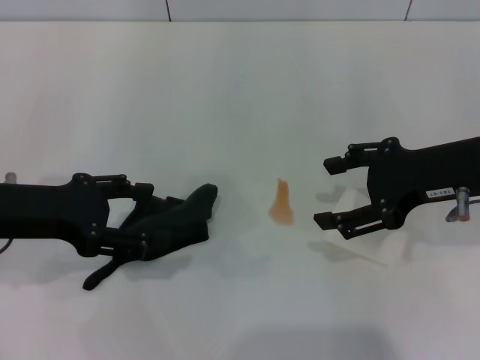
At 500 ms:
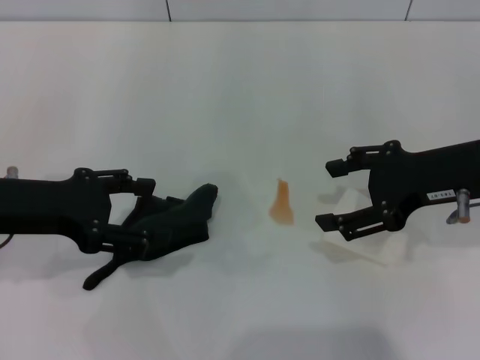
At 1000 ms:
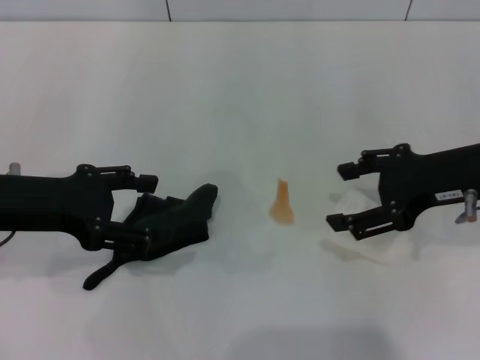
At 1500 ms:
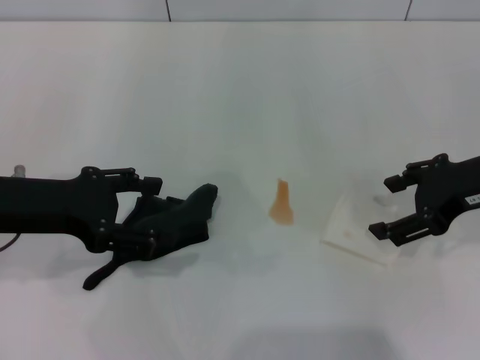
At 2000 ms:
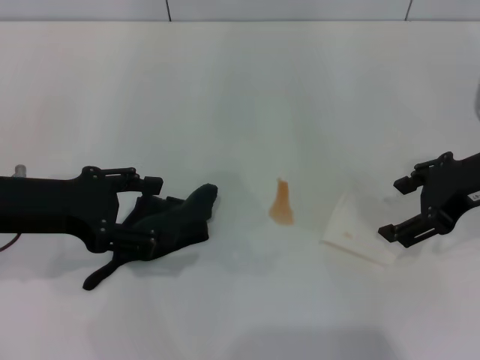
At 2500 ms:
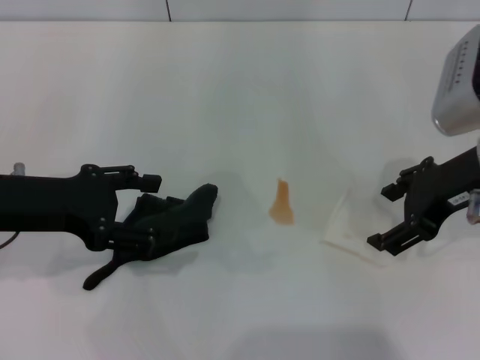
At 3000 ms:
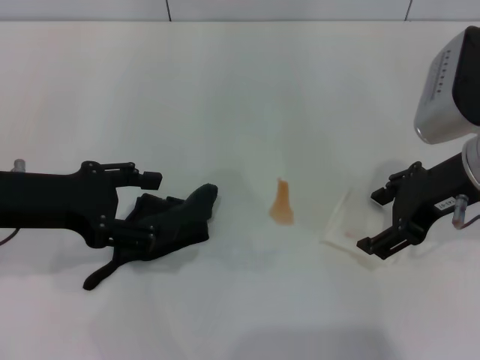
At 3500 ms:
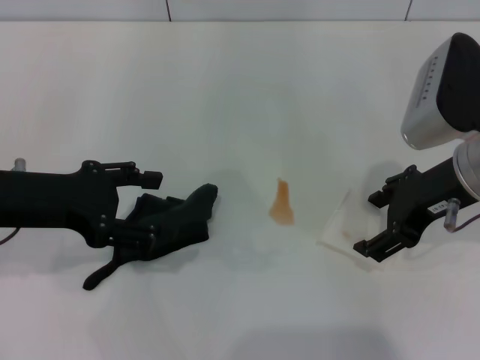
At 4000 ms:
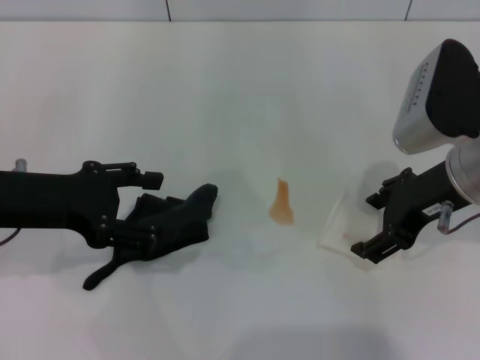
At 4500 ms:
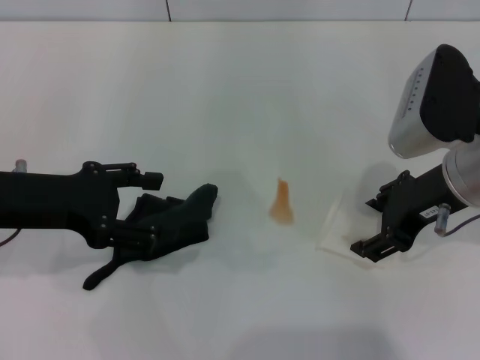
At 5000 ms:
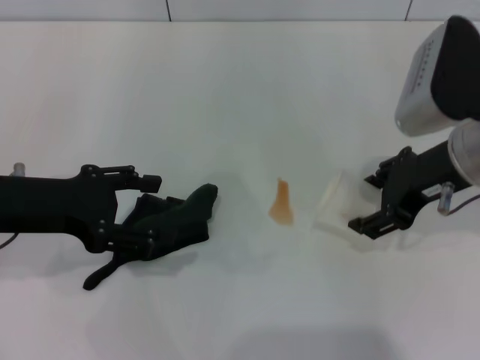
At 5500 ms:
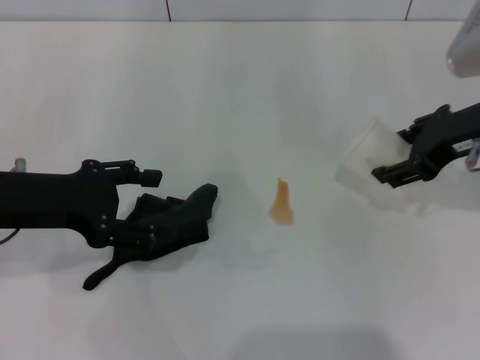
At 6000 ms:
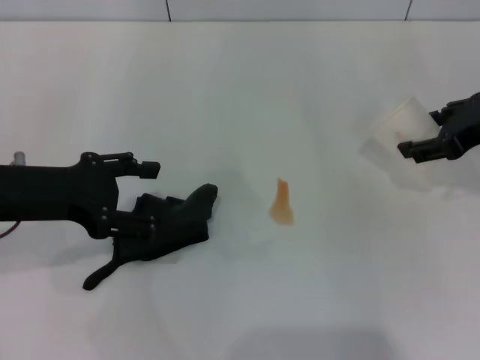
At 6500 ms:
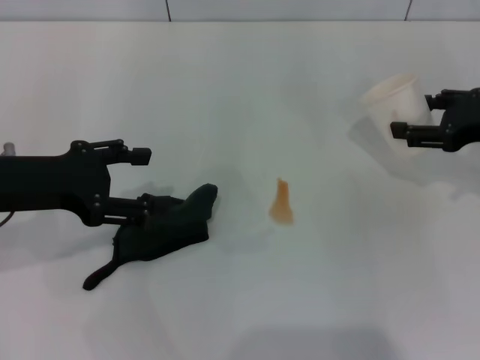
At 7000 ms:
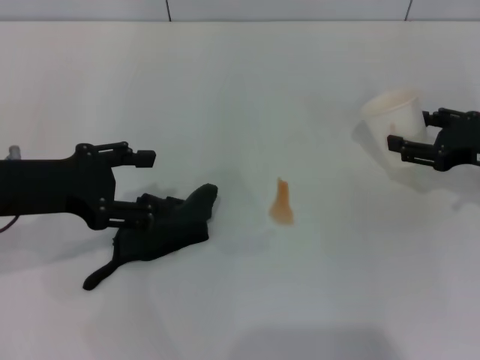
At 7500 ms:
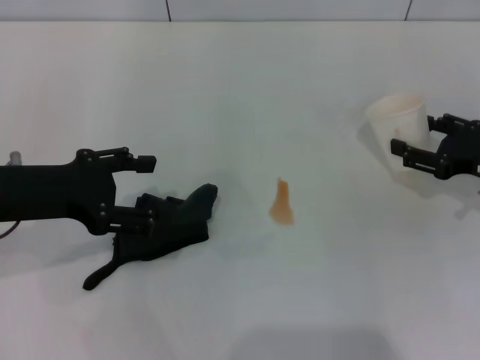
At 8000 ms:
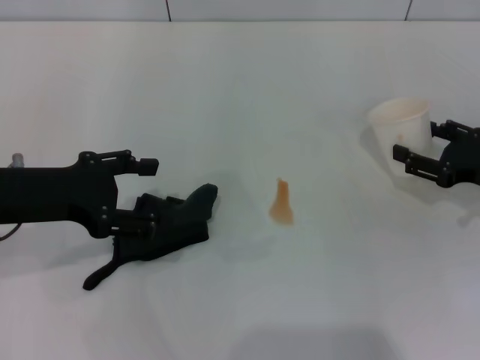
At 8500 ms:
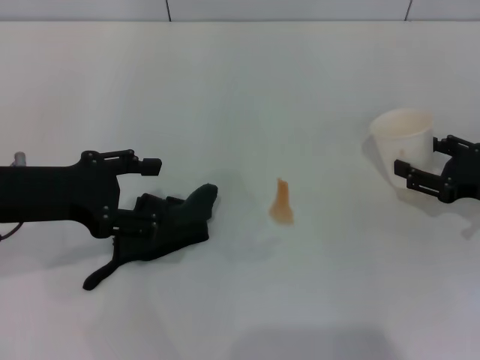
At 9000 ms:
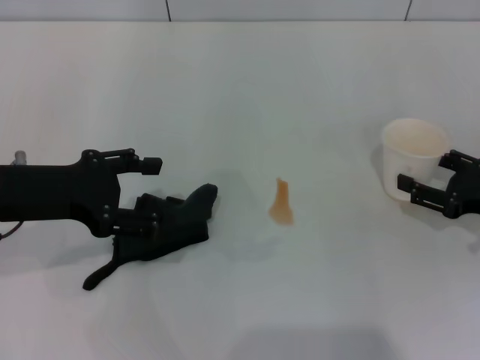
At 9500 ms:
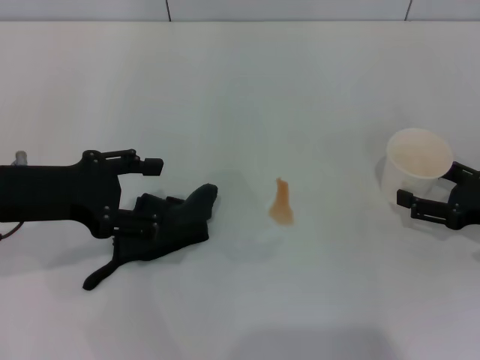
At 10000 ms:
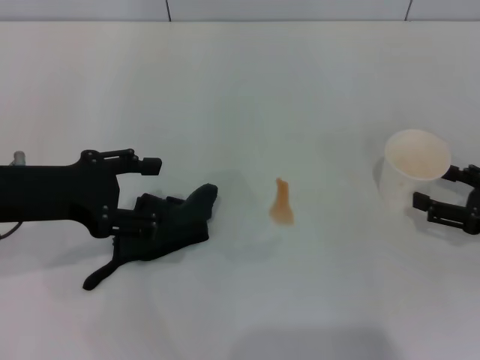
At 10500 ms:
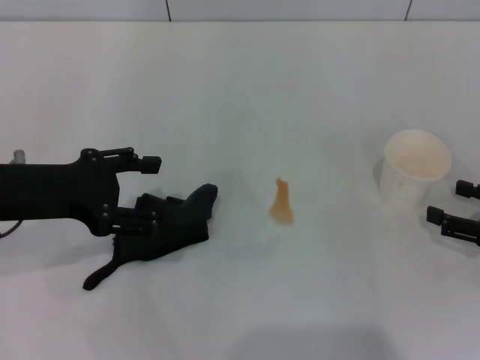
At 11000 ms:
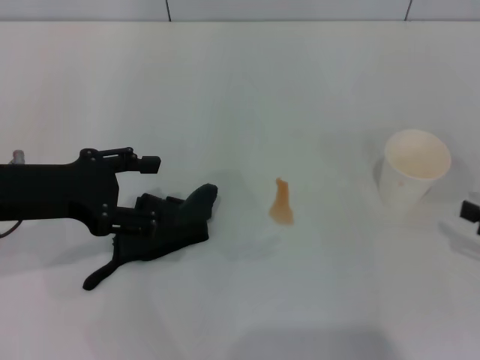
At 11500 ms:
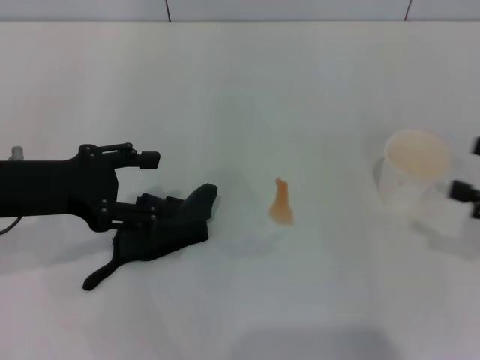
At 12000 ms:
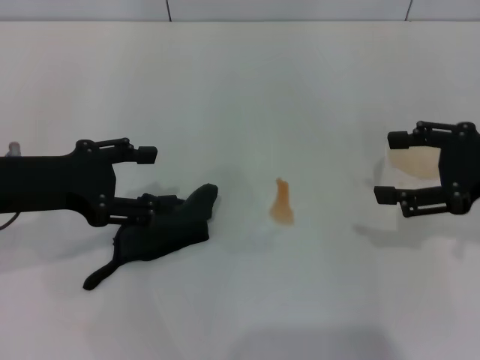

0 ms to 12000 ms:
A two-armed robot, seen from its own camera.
Step, 0 ms to 4500 ms: Grasp the paper cup with the right gripper.
Step, 5000 ms to 9500 ms: Stand the paper cup upright with the right gripper.
2000 ms to 4000 ms: The grippers move only a little.
4000 ms to 6000 ms: The right gripper moves to the right, some 10 cm, and closes.
6000 ms to 8000 ms: The right gripper is displaced downward by roughly 10 cm.
8000 ms to 10000 ms: The right gripper ends up some 5 cm from where it was, and opens.
10000 ms to 12000 ms: The right gripper goes approximately 15 cm upward and to the left.

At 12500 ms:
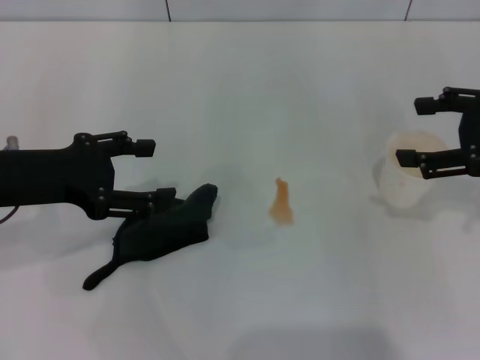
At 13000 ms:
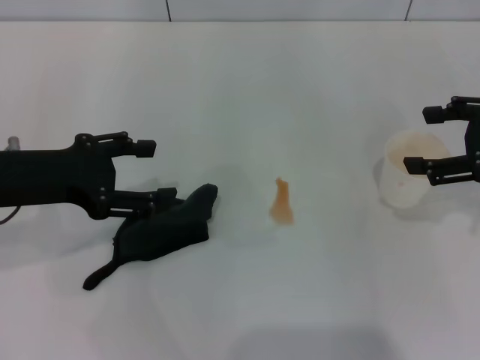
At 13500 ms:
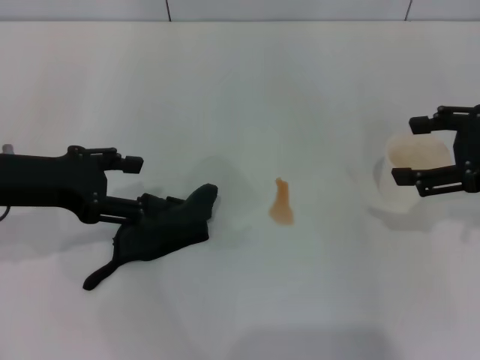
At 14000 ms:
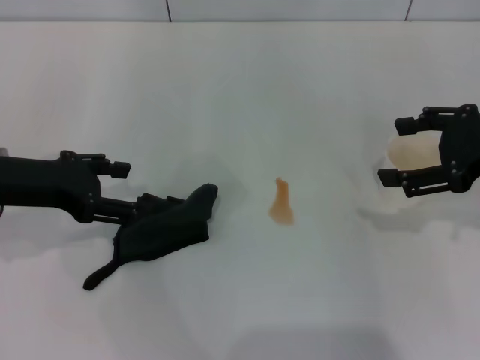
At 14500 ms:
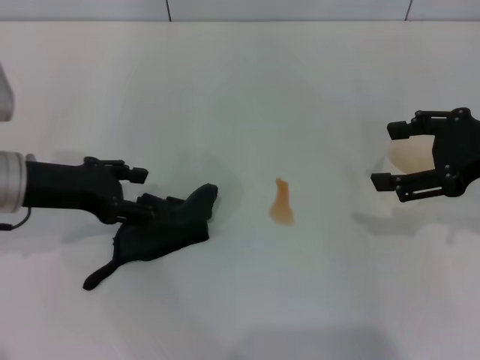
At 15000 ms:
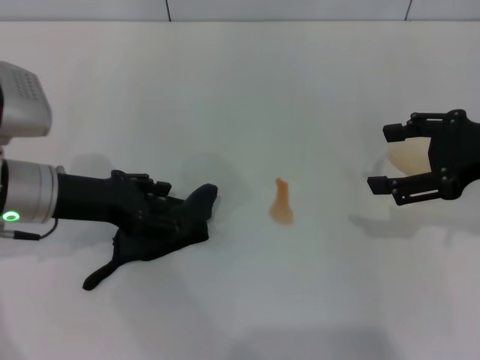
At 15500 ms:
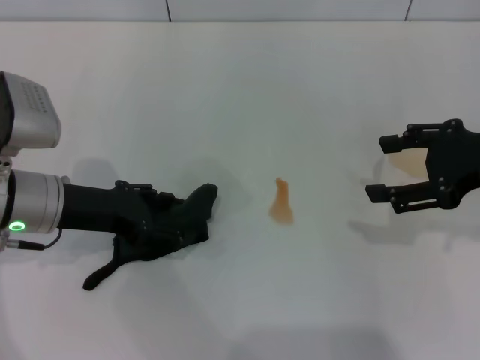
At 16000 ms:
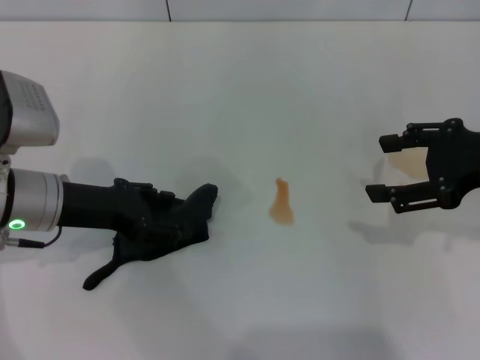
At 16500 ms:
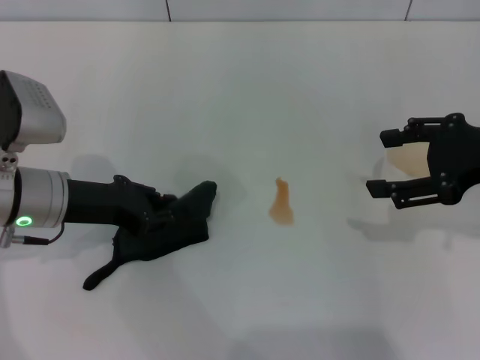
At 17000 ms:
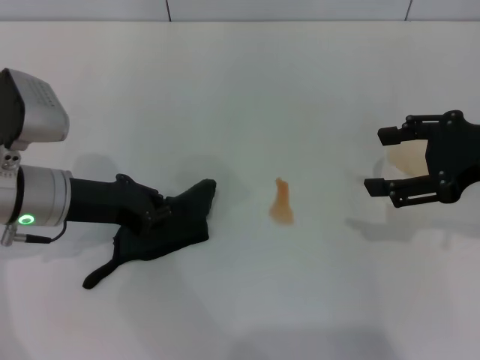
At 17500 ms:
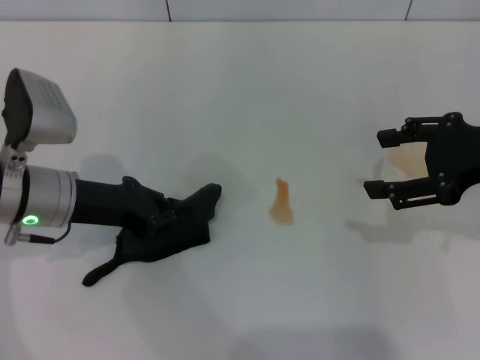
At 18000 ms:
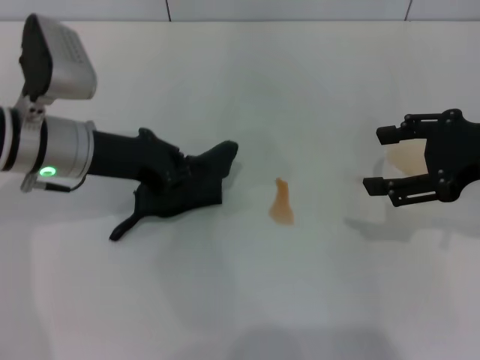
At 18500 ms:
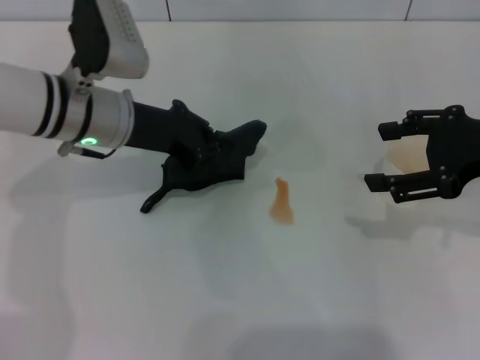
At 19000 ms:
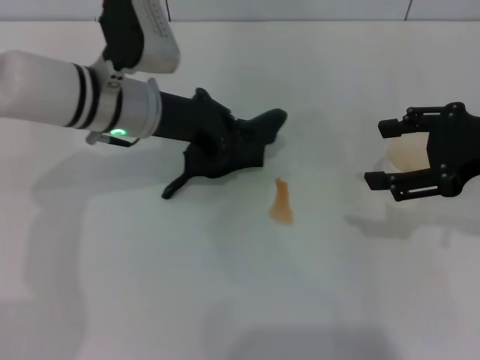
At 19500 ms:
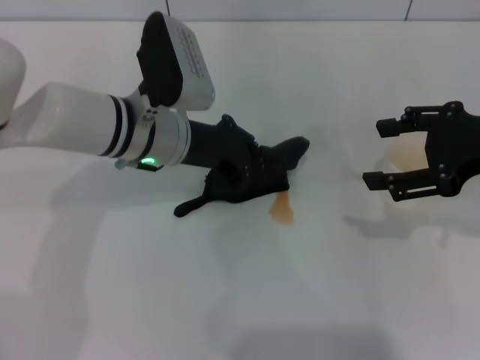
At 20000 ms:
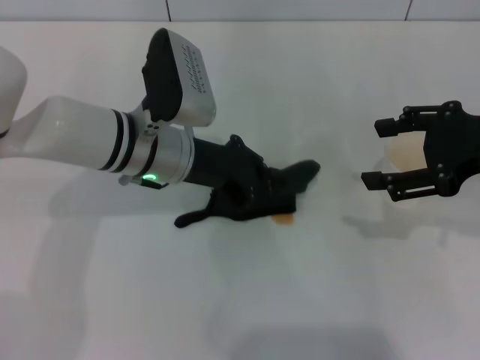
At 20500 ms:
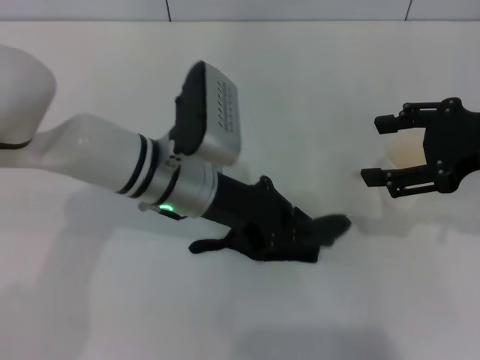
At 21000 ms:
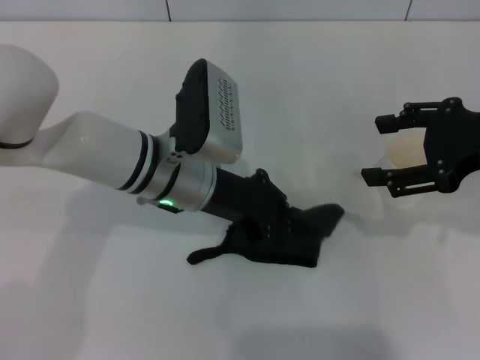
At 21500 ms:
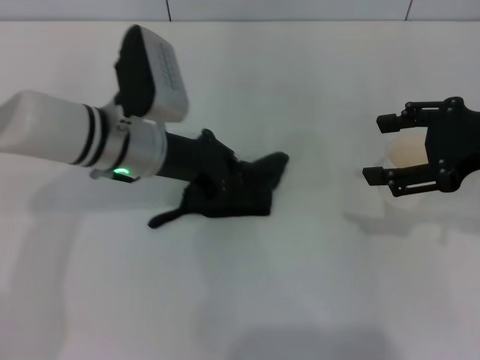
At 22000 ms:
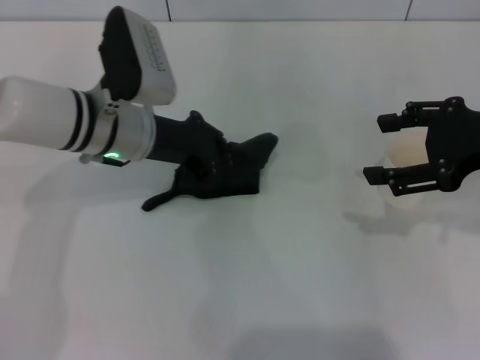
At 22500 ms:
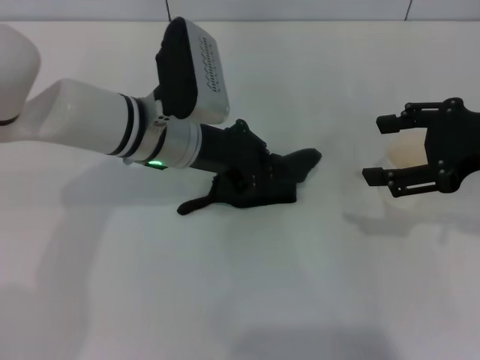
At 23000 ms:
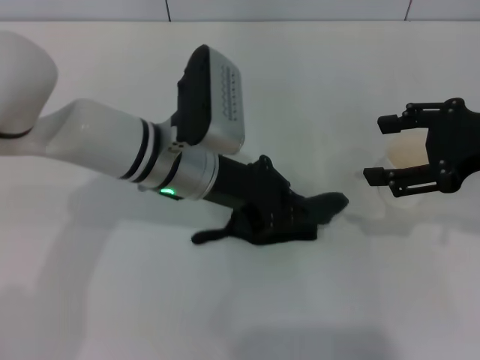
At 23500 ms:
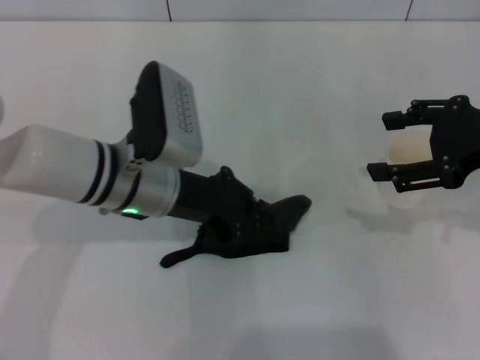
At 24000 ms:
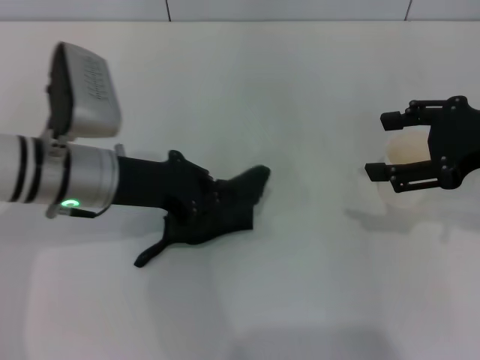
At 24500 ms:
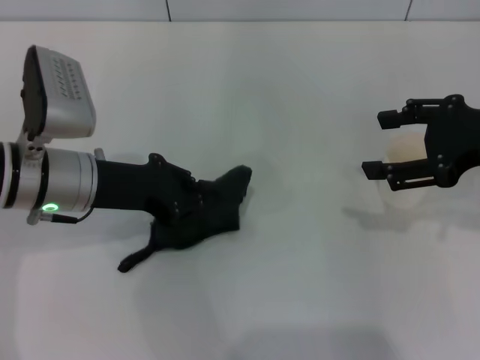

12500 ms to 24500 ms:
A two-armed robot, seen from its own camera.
Step, 12500 ms to 17000 ms: Grasp the rag with the left gripper.
Step, 17500 ms to 24000 ms: Wipe the stains off the table with the left gripper.
12500 ms to 14500 ms: The grippers move only a little.
14500 ms to 16500 ms: The left gripper closes its fingers. Meanwhile the right gripper closes up.
16500 ms to 18500 ms: The left gripper shifts roughly 10 cm to the right and forward, and closes.
18500 ms to 20500 ms: The left gripper heads to the right, covering approximately 5 cm.
22500 ms to 24500 ms: The left gripper heads to the left, covering roughly 10 cm.

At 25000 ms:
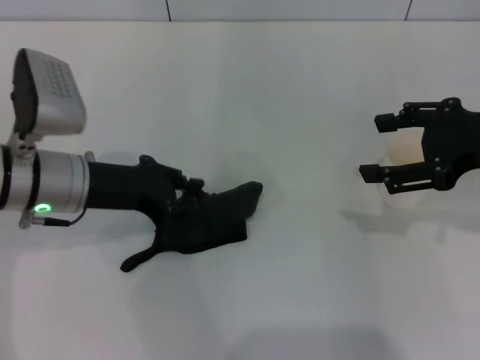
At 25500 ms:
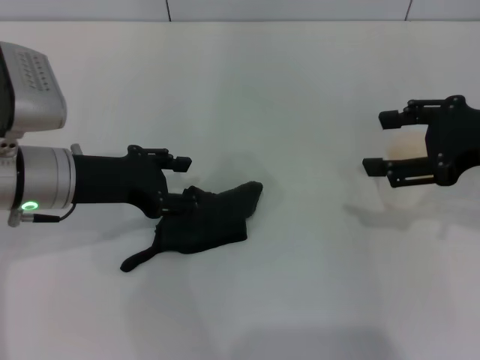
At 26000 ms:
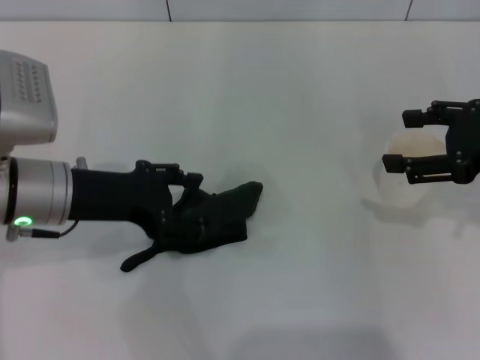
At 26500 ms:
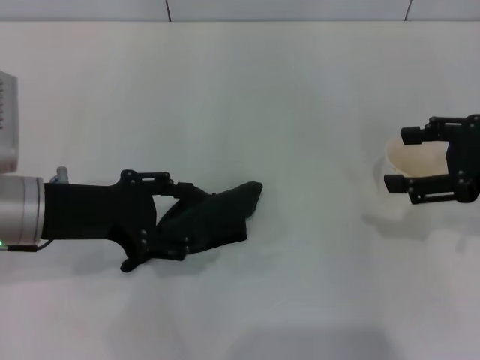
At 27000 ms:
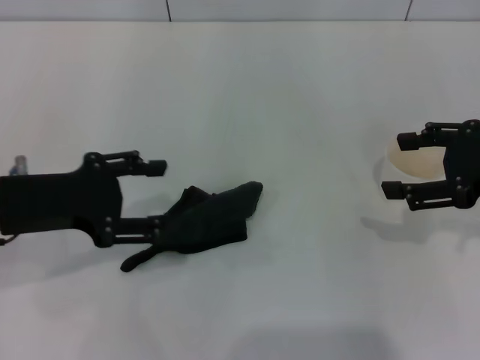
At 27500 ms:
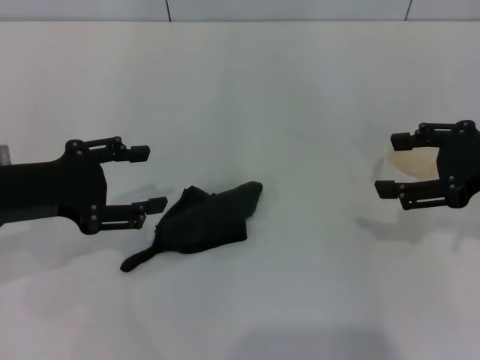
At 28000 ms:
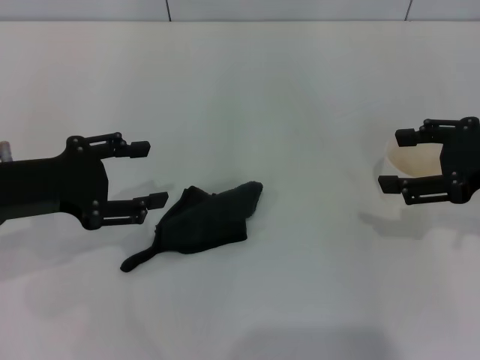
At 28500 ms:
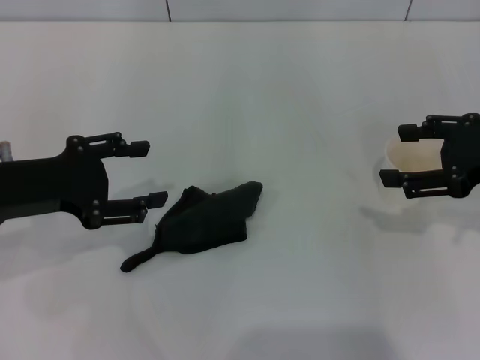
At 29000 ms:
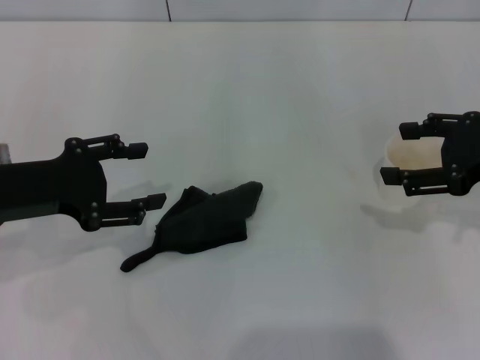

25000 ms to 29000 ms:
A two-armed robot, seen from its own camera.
25000 ms to 27000 ms: The left gripper moves to the left and backward, about 5 cm, and opens.
27000 ms to 29000 ms: The grippers make only small movements.
